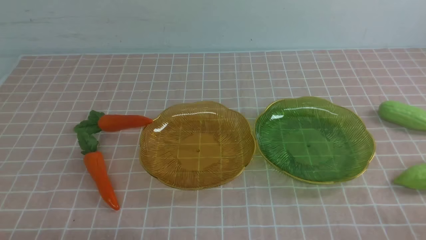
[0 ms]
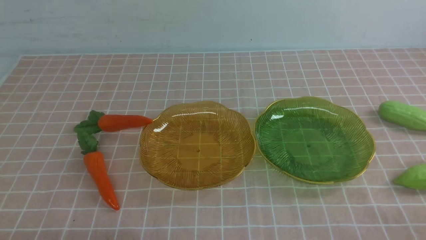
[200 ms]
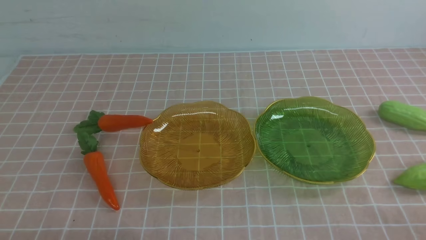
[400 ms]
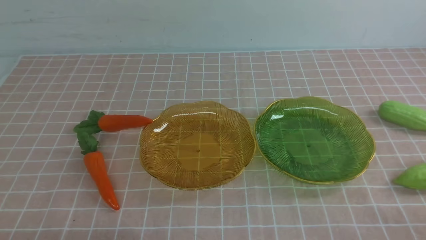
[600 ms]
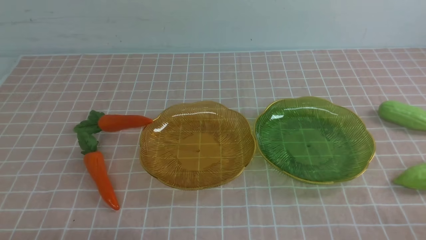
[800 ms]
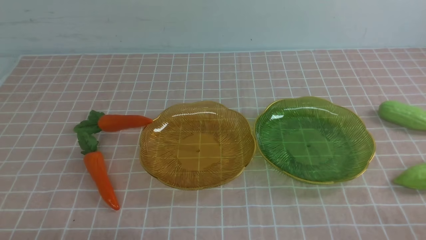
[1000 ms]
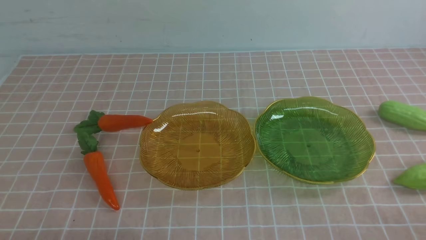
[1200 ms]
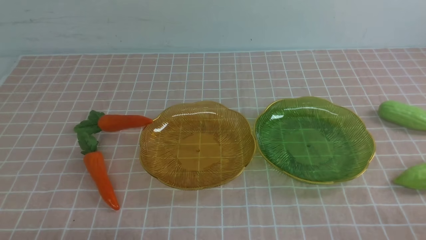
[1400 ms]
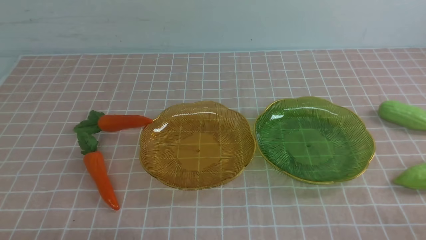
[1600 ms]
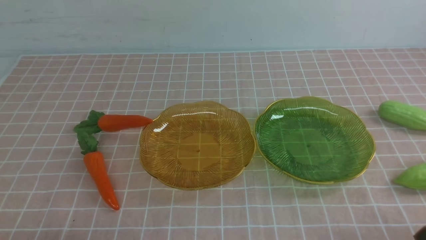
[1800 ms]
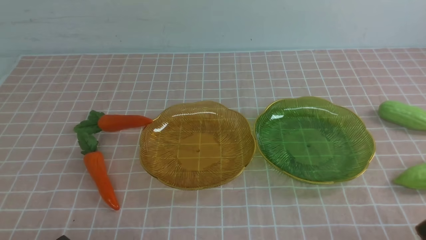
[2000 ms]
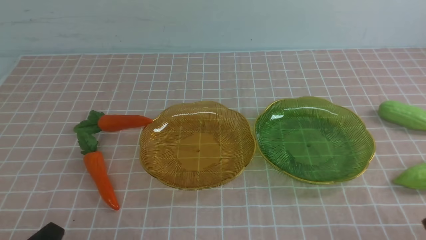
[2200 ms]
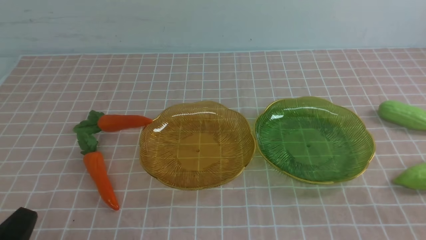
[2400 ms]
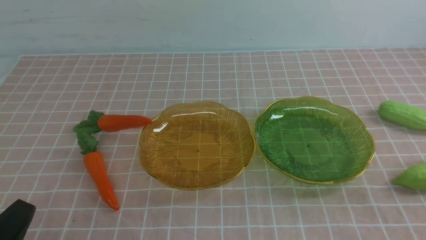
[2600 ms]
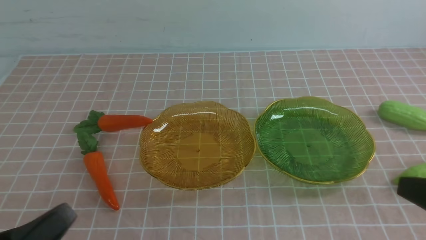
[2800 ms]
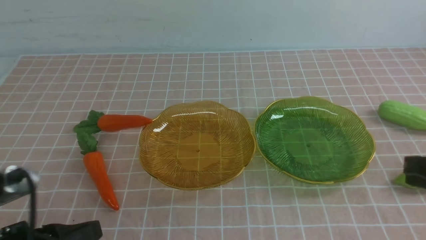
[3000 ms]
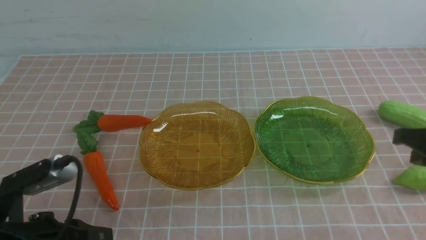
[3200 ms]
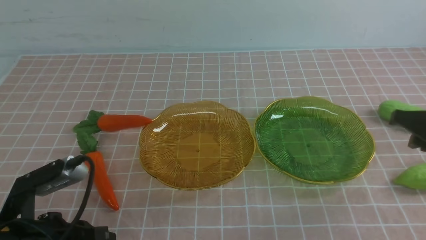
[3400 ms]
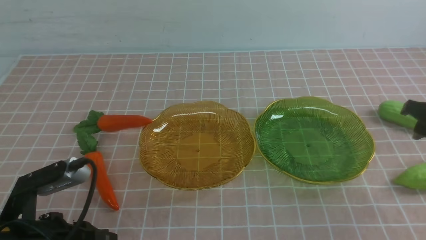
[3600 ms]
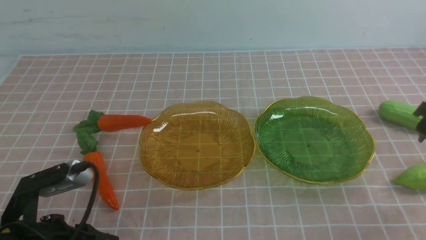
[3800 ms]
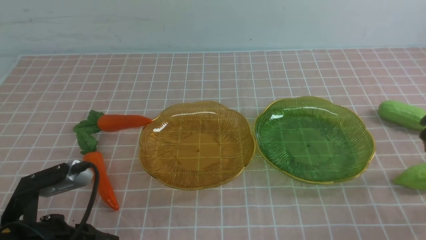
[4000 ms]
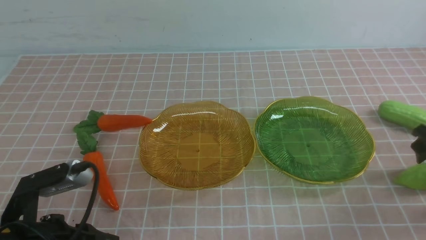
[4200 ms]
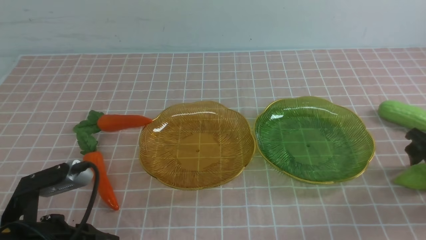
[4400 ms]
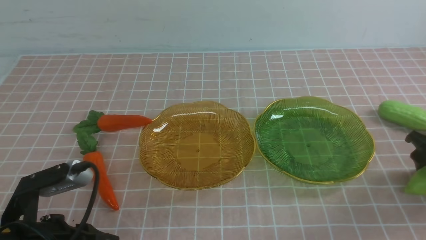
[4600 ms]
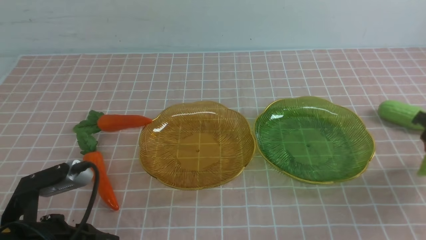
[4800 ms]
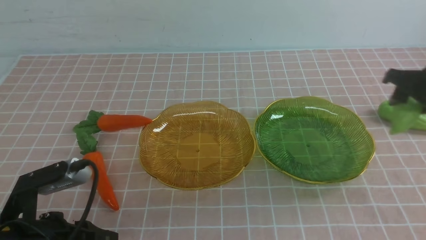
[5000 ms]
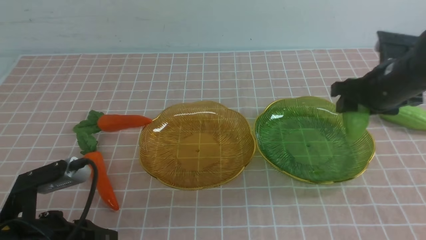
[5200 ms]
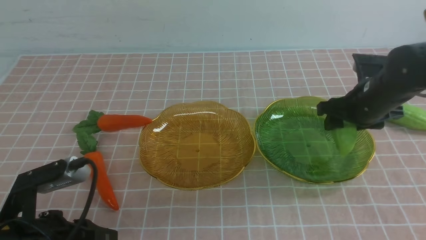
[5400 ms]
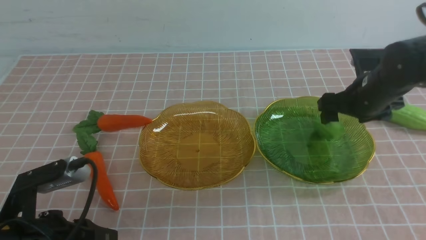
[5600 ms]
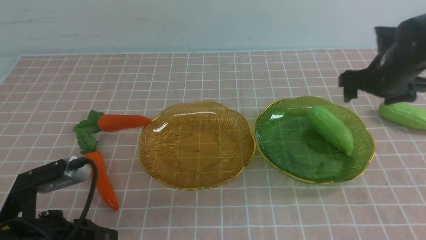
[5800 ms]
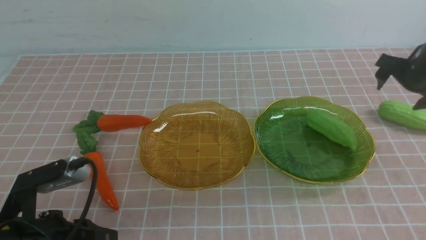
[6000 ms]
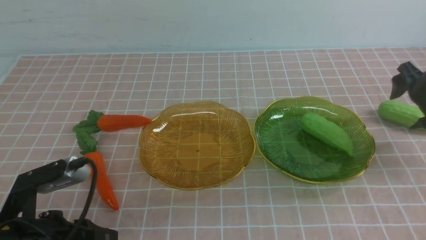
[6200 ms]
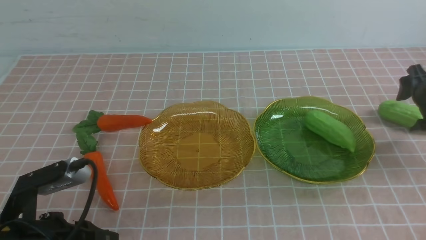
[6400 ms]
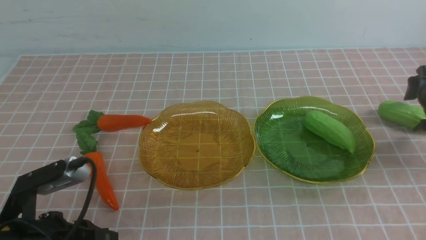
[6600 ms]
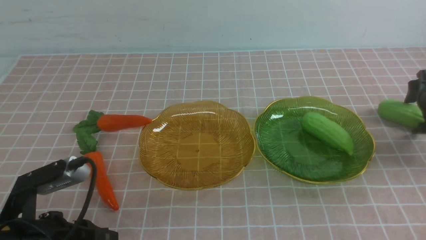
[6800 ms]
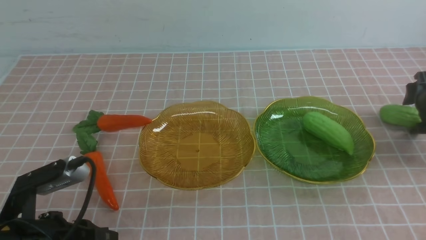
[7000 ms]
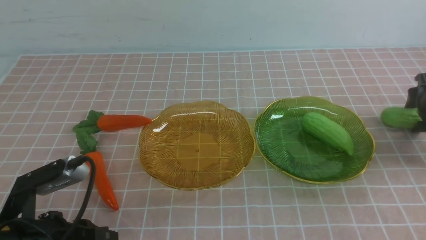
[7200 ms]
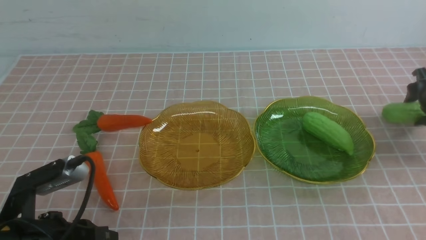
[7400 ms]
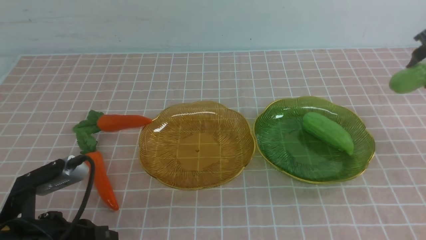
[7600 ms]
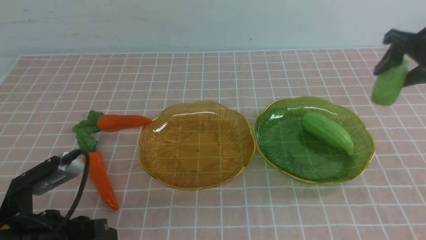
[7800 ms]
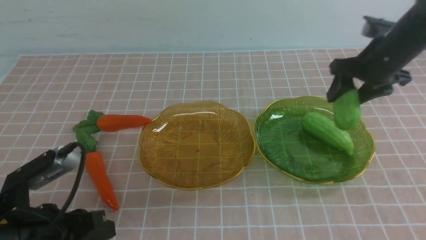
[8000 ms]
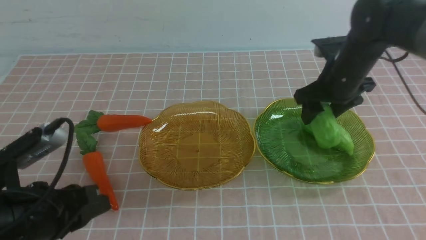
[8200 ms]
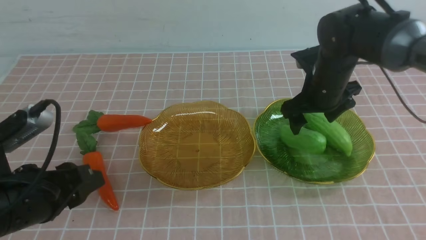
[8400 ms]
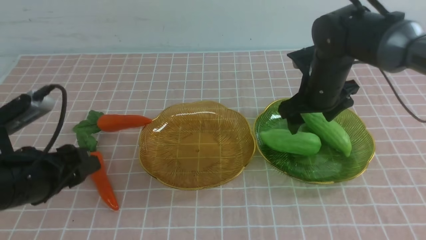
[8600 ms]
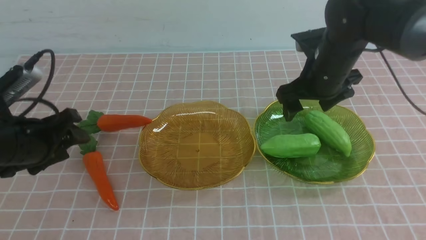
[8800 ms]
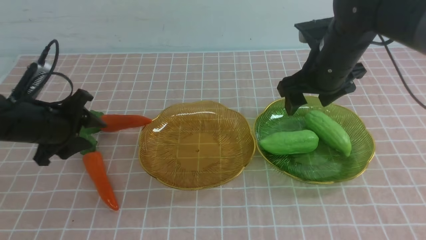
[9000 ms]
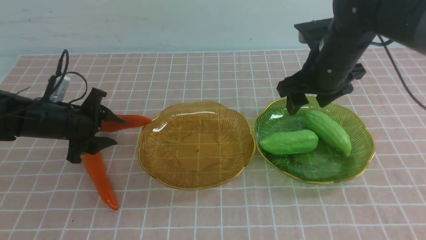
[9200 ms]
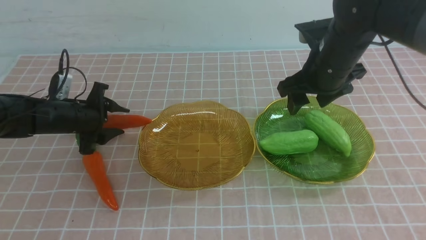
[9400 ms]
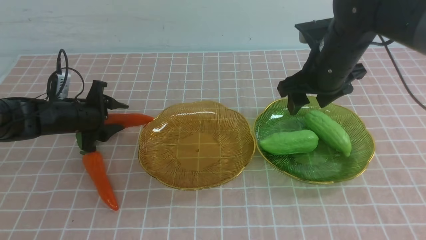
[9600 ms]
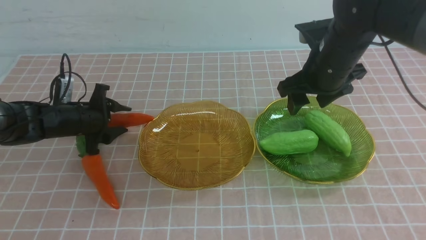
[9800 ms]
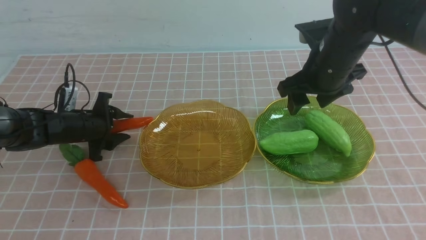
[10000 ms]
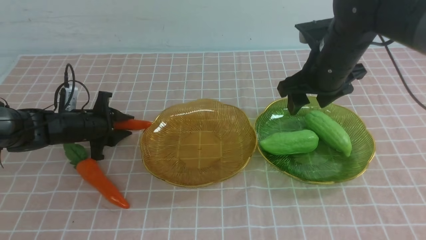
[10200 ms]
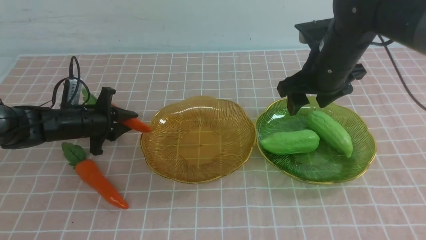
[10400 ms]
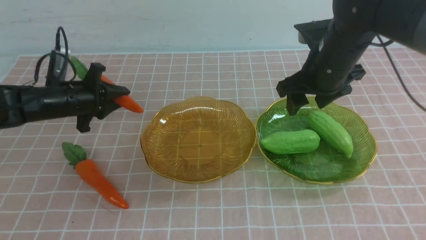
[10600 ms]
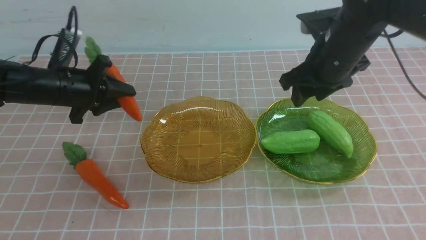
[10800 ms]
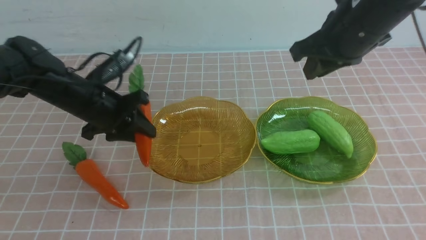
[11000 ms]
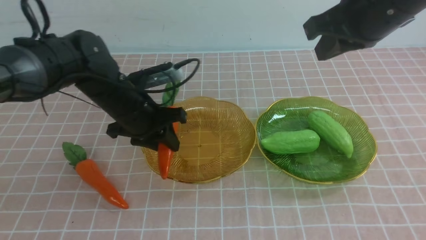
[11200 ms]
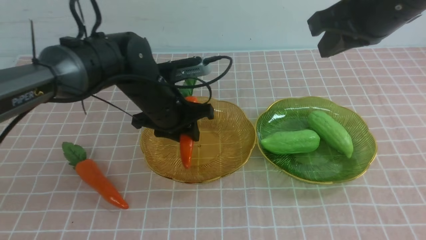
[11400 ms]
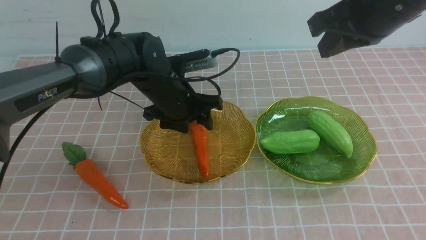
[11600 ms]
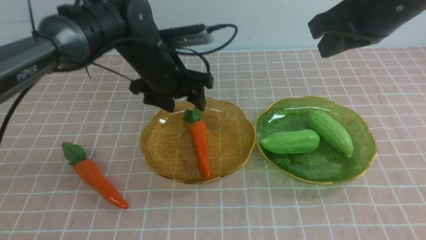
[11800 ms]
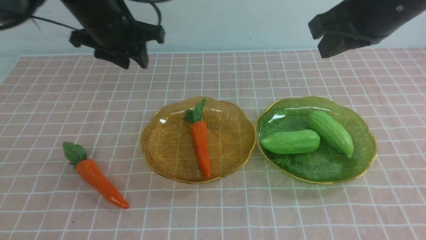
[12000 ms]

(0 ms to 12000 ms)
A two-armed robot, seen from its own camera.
Step, 0 ms - 5600 ms: use the right arm to grab a chayote and put it into the right plate.
Step, 5800 ms - 8400 ms: use the right arm to grab a chayote and put it into the right plate.
Step, 8600 ms - 11600 ms: use the left arm to grab a carrot and put it into the left plate.
1600 ms - 3000 ms: The left gripper heads forward and upward, covering roughly 10 cm. Meanwhile the right gripper heads forward and upward, covering roughly 20 cm.
3000 ms - 4400 ms: The right gripper heads forward, covering some 10 cm, moves about 10 cm downward and comes back, and opens.
4400 ms - 6000 ms: The right gripper goes roughly 15 cm to the right, forward and downward.
6000 ms - 7600 ms: The right gripper goes approximately 25 cm to the left.
7600 ms - 9000 ms: The left gripper travels forward and downward by some 25 cm, while the right gripper moves roughly 5 cm.
9000 ms - 10400 ms: The right gripper shifts some 10 cm upward and backward, and closes up. The left gripper moves to the right and upward, approximately 15 cm, and closes.
10400 ms - 12000 ms: The left gripper travels backward by about 5 cm, goes to the right and returns, roughly 10 cm each way, and opens and closes again.

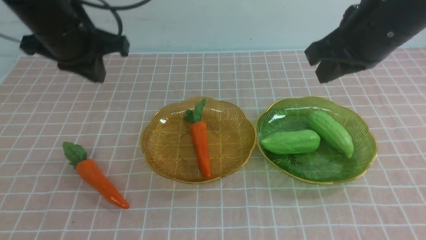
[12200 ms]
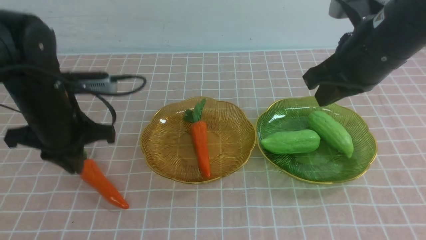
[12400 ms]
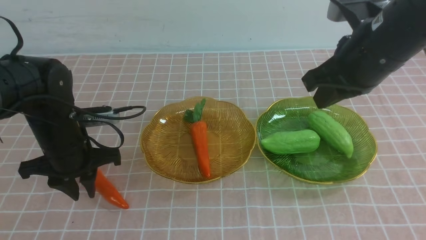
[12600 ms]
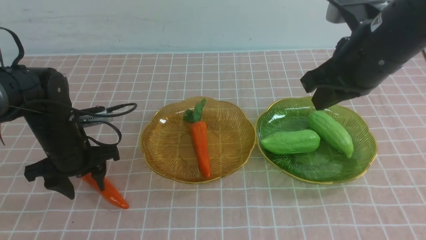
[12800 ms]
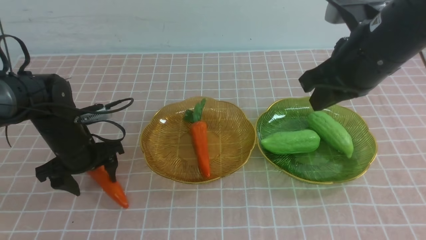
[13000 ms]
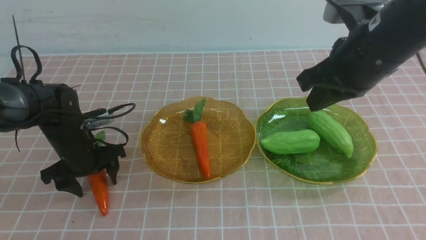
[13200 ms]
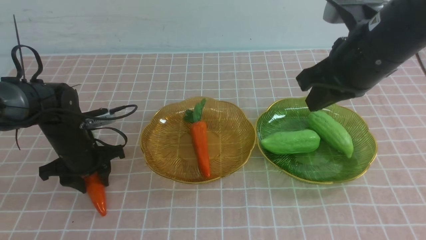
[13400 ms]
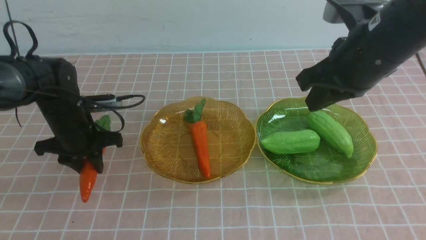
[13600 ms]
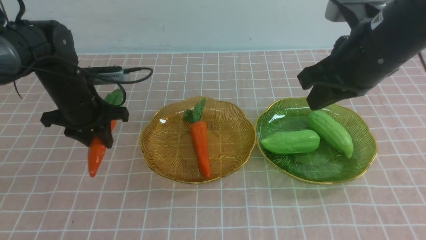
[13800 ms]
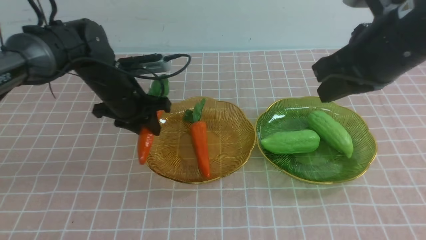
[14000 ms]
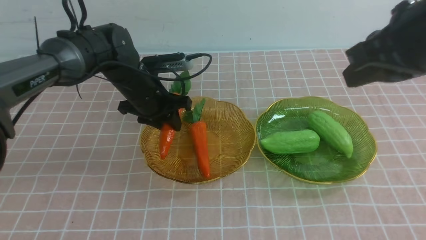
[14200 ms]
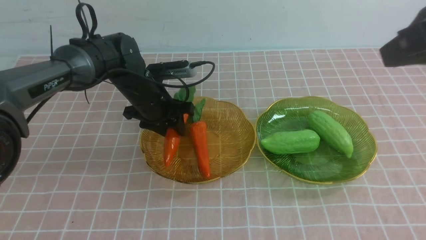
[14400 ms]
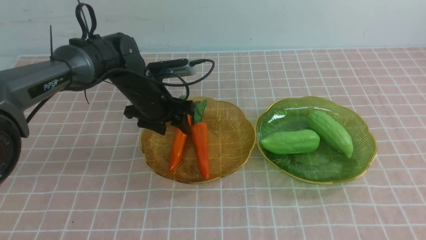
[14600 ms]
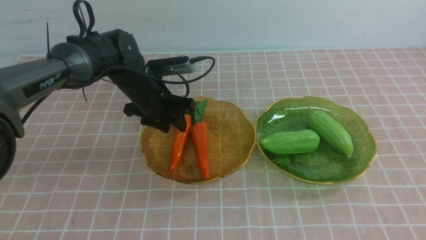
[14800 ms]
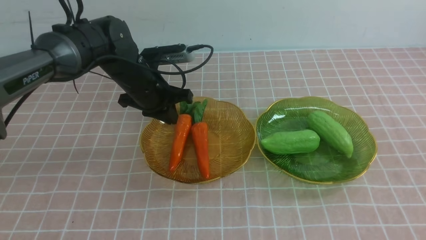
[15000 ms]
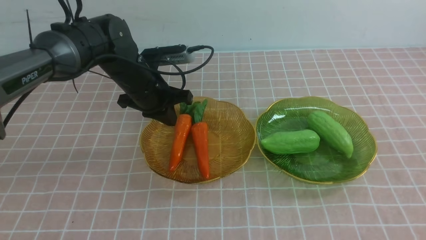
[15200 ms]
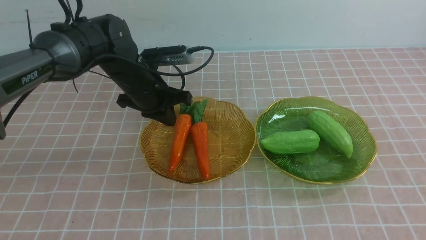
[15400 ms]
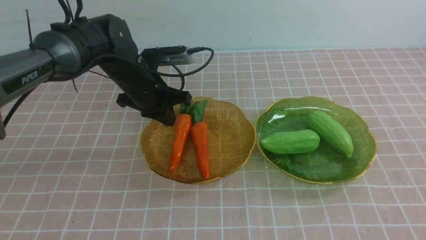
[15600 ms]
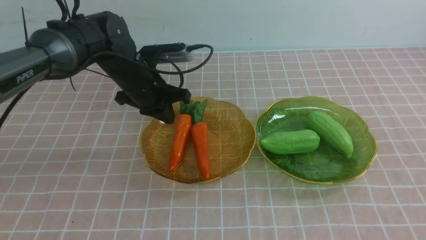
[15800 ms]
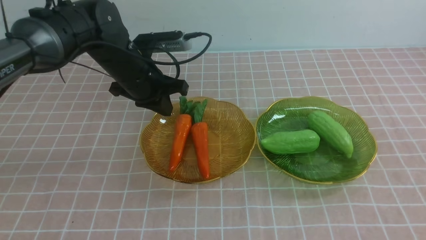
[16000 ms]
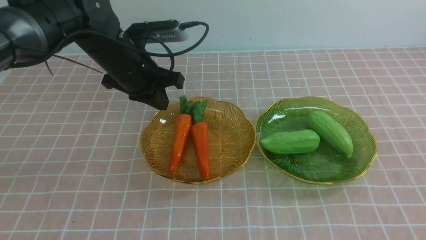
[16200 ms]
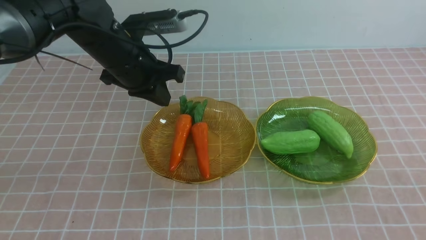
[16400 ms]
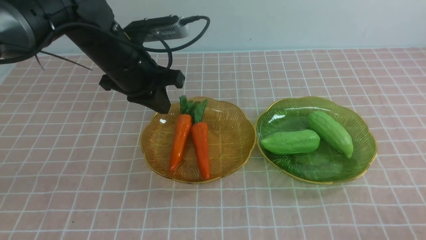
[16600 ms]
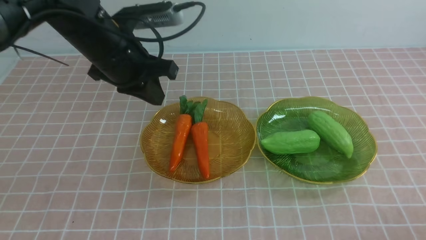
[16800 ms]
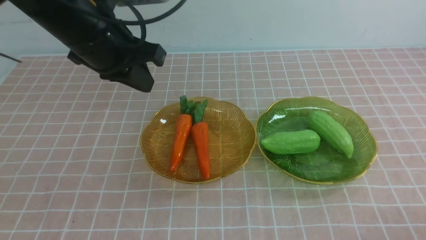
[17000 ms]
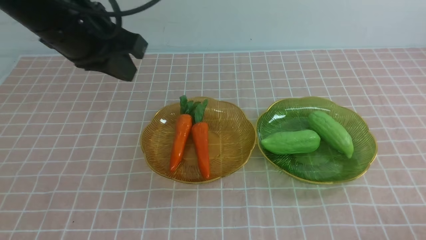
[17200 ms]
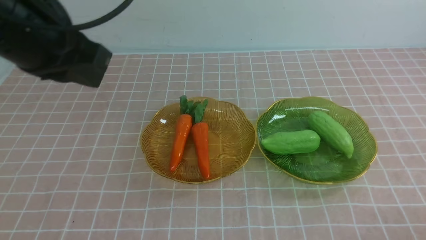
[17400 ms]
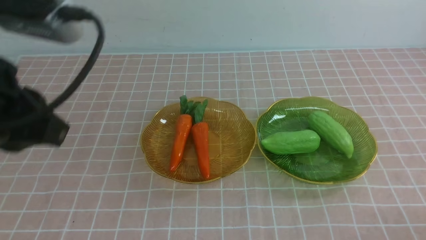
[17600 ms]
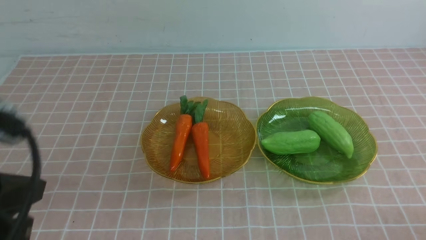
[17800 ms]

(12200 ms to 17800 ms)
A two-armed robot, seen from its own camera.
Step, 12200 ms - 14600 ms: use the left arm to grab a carrot and put it into the left plate.
12200 ms - 13600 ms: The left gripper is displaced forward by about 5 cm, and opens, then closes again.
13600 ms - 15000 ms: The left gripper shifts about 10 cm to the right, and opens, then closes again; the right gripper goes about 20 cm backward and to the right.
15000 ms - 16400 ms: The left gripper heads upward and backward, covering roughly 10 cm. Meanwhile the right gripper shifts roughly 15 cm downward.
16400 ms - 17800 ms: The left gripper moves backward, about 25 cm.
